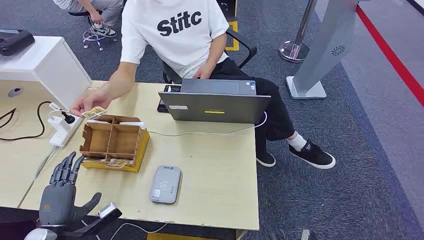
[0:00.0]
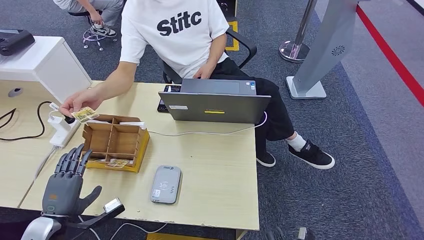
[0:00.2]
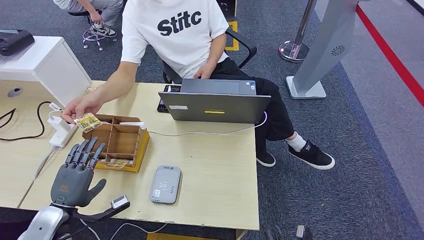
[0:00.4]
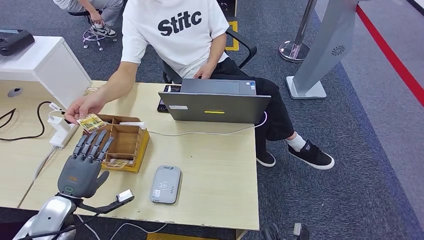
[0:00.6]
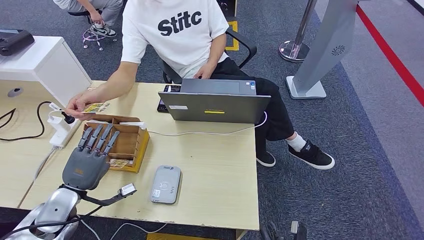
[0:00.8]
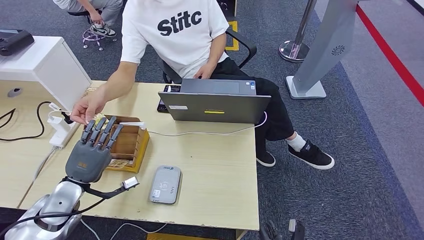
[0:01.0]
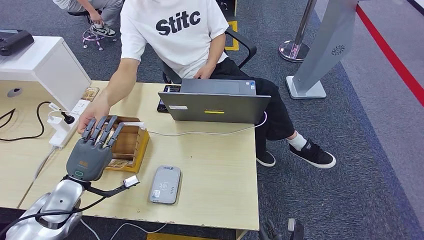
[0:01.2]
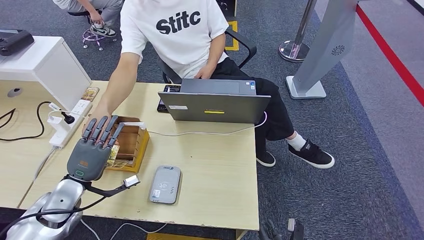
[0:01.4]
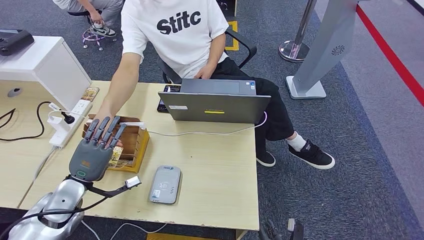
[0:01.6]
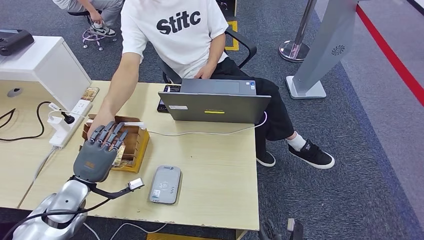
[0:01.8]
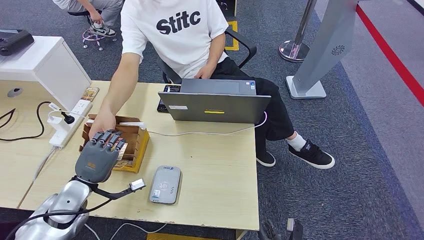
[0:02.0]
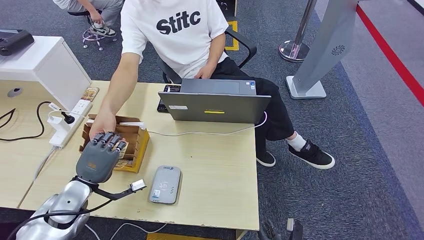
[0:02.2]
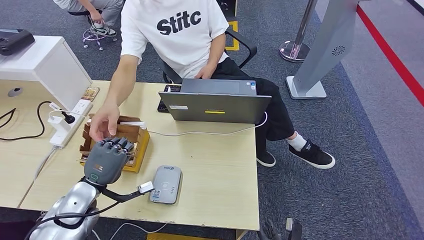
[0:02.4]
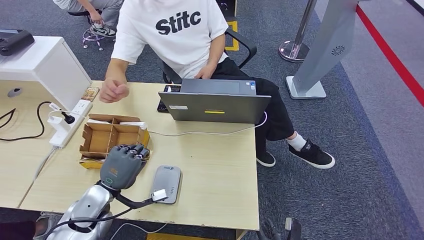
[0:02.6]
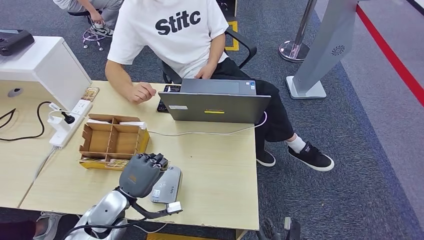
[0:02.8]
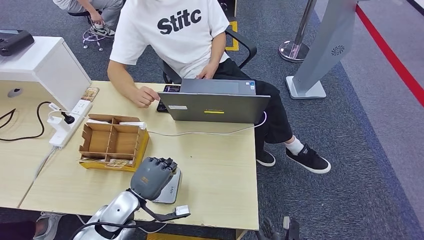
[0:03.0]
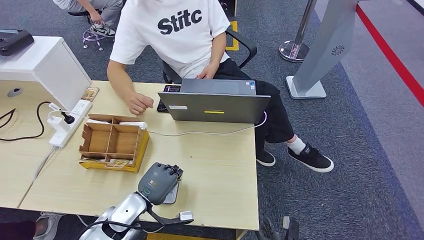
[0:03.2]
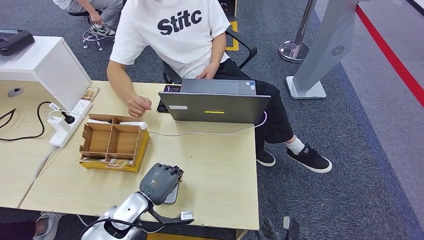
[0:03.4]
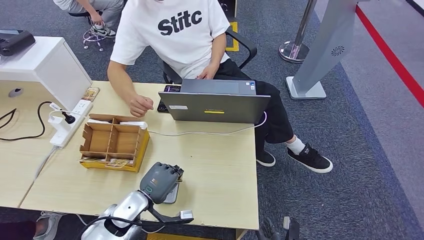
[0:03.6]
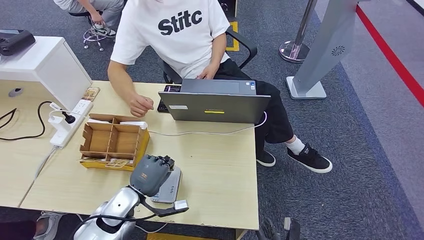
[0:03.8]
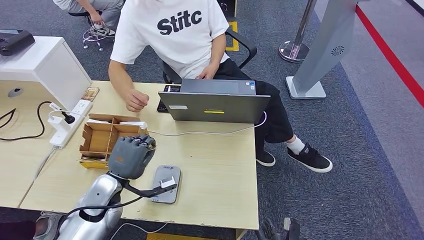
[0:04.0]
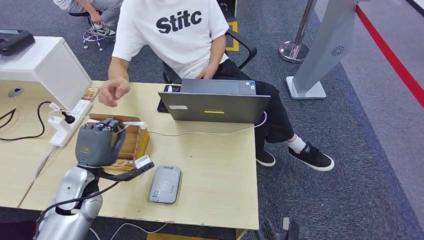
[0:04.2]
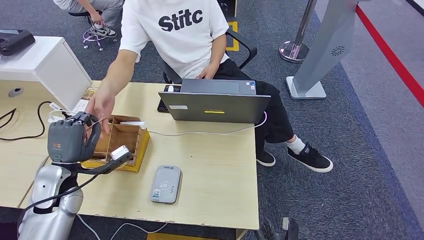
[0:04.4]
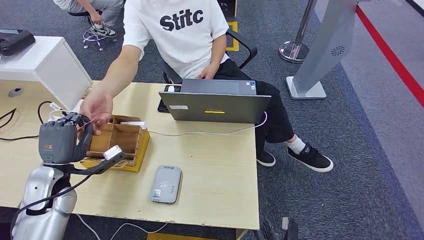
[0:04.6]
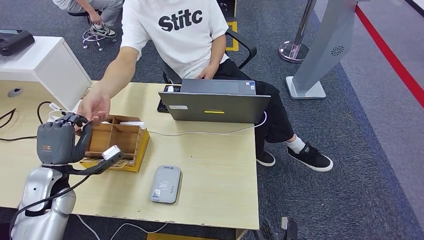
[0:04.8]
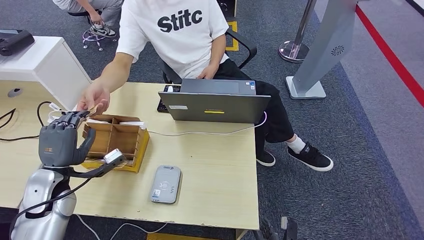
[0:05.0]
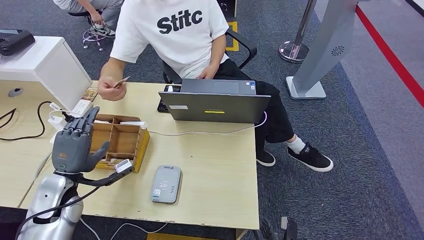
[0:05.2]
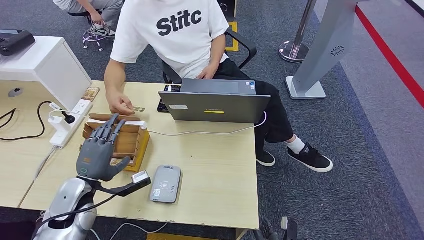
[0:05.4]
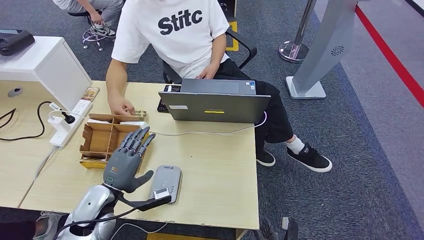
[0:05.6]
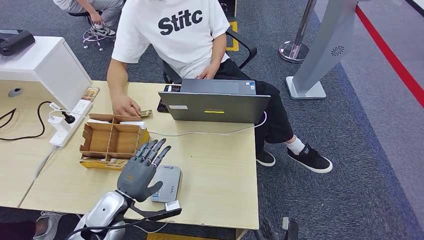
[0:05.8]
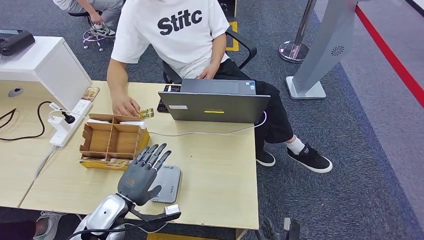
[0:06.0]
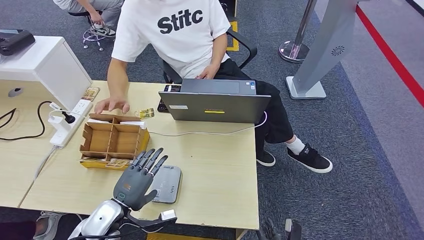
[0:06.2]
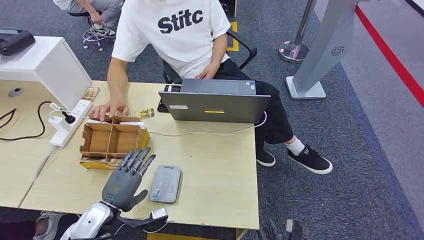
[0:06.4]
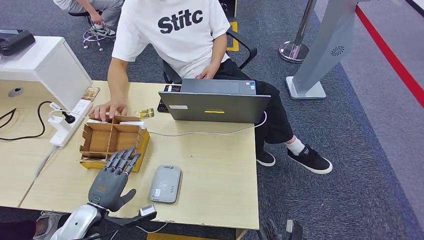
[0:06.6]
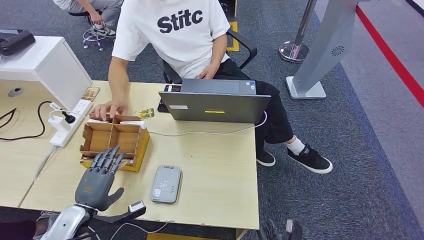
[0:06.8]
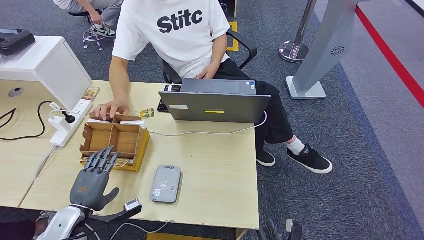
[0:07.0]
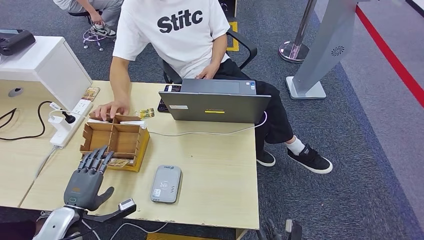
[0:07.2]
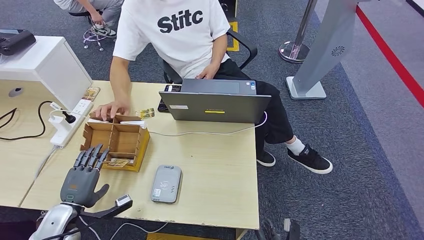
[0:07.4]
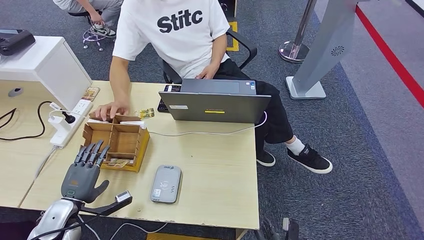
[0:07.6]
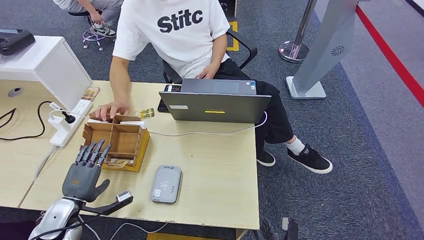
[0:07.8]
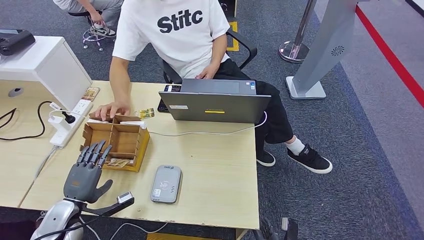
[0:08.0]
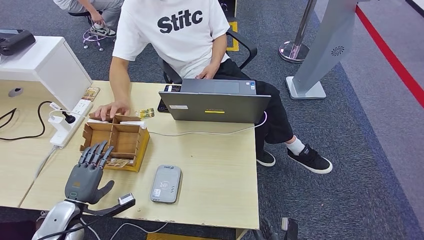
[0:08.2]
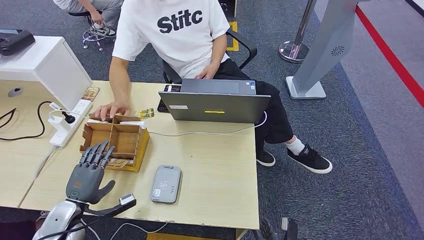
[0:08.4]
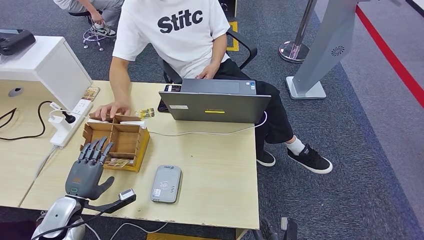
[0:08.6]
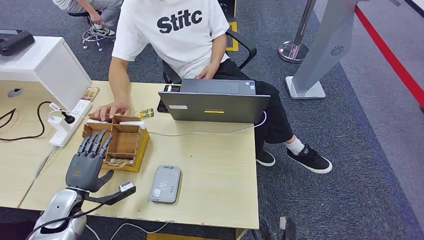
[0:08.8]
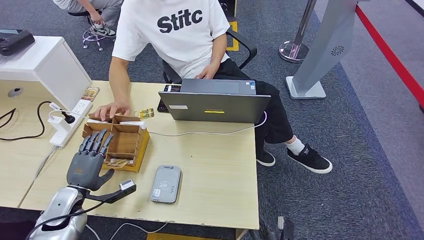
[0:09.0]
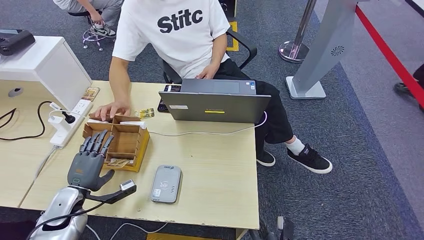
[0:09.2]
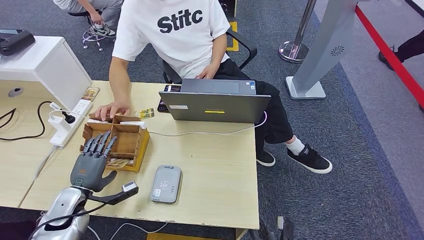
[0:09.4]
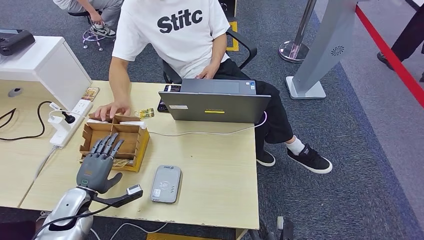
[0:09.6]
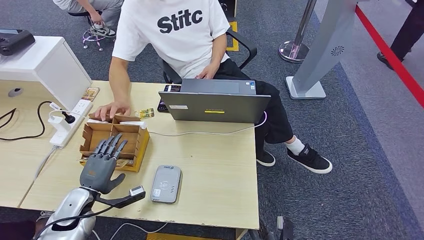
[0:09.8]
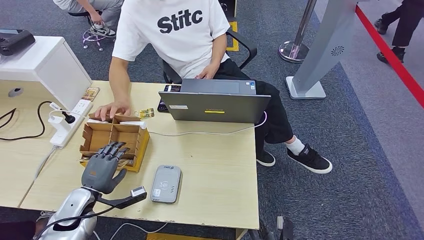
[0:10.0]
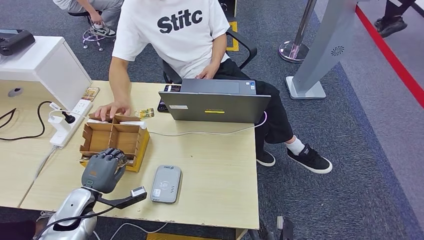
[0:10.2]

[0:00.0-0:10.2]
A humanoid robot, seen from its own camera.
Step, 0:00.0 to 0:02.8: Take the ID card from the person's hand.
Step, 0:03.0 to 0:03.6: Place the ID card on the card reader.
Step, 0:03.8 to 0:05.4: Hand the ID card to the person.
0:01.4 to 0:03.0: The left hand heads to the right, covering approximately 15 cm.
0:03.0 to 0:04.4: The left hand is displaced to the left and upward by some 15 cm.
0:04.4 to 0:05.8: The left hand heads to the right and downward, covering roughly 10 cm.
0:05.8 to 0:07.2: The left hand shifts some 10 cm to the left.
0:07.2 to 0:10.2: The hands stay close to where they were, moving slightly.

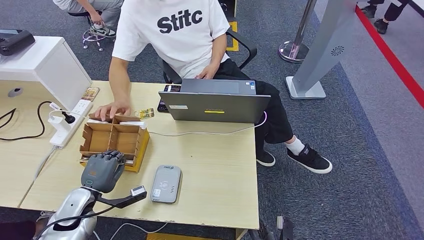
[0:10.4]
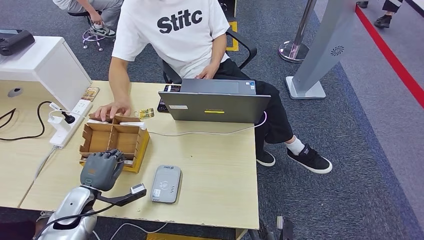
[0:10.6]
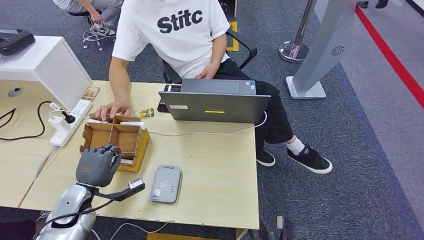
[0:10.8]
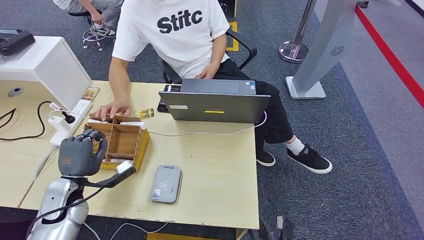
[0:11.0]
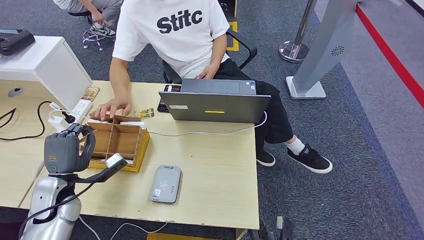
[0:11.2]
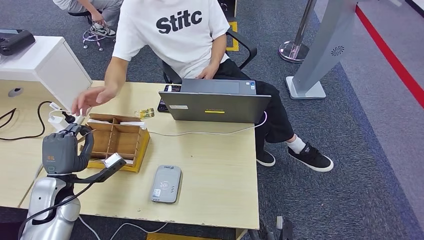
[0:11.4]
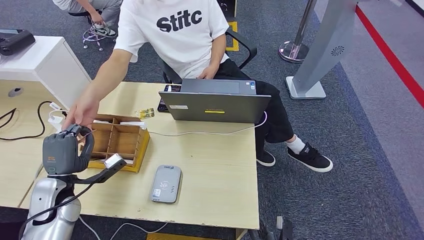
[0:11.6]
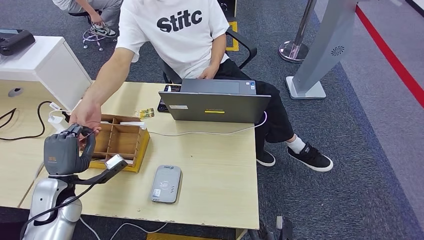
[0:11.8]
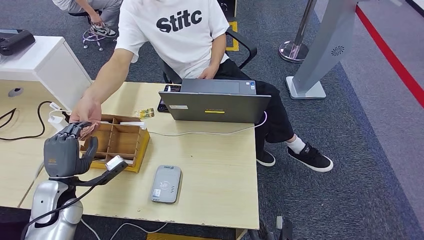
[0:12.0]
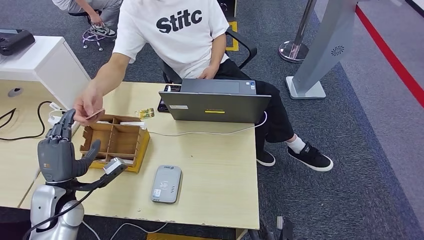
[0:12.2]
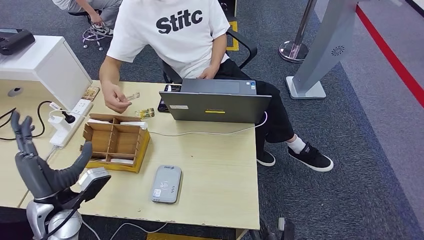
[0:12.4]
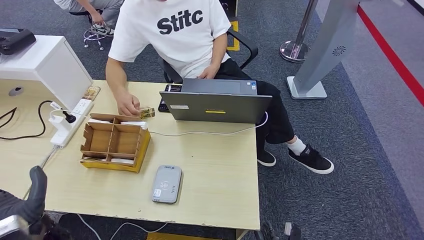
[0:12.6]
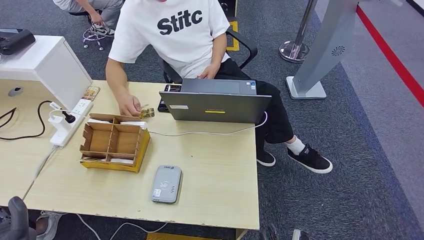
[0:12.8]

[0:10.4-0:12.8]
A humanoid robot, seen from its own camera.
Step, 0:11.2 to 0:12.8: Hand the room key to the person.
0:10.4 to 0:11.6: The left hand goes some 5 cm upward.
0:11.6 to 0:12.8: The left hand travels backward by about 15 cm.
